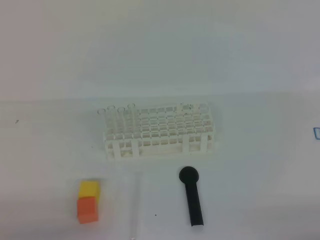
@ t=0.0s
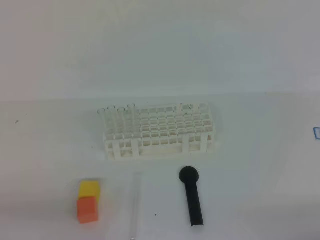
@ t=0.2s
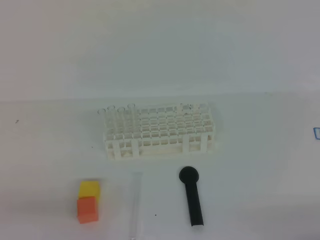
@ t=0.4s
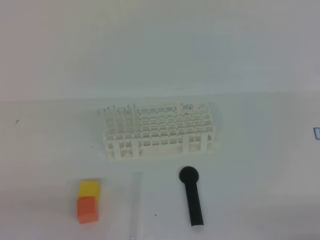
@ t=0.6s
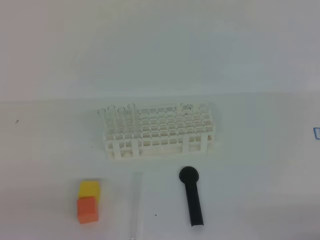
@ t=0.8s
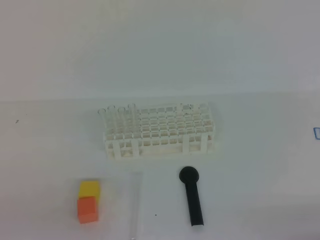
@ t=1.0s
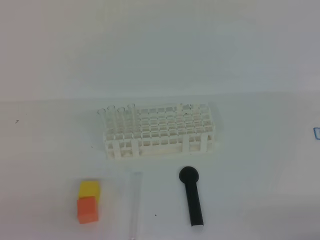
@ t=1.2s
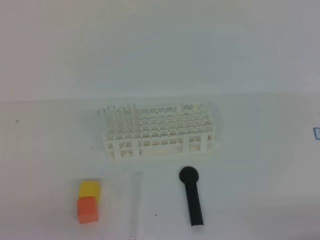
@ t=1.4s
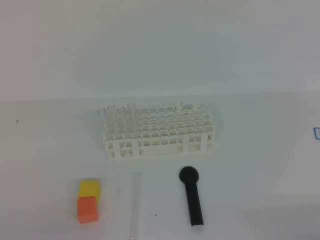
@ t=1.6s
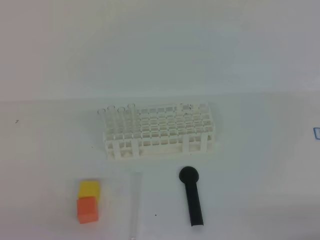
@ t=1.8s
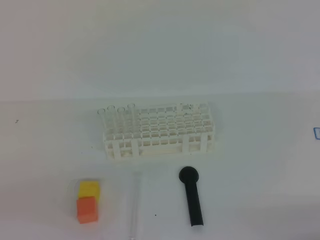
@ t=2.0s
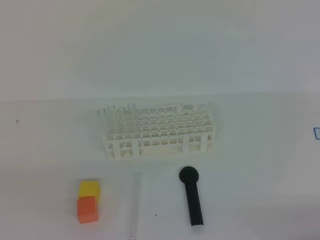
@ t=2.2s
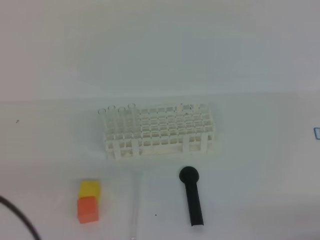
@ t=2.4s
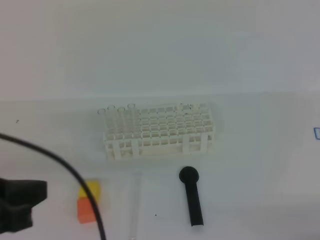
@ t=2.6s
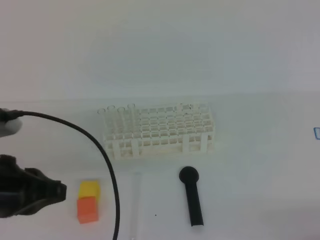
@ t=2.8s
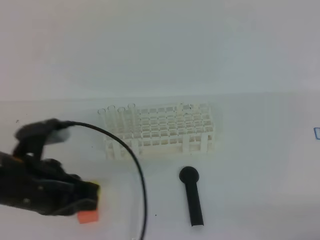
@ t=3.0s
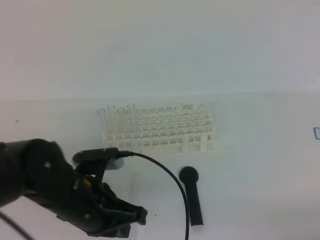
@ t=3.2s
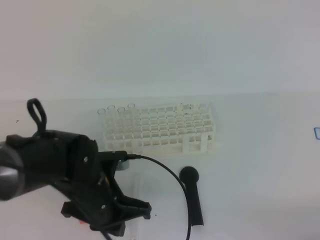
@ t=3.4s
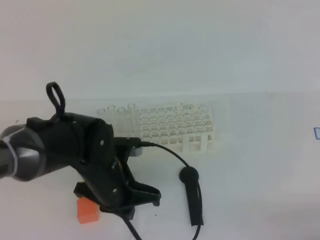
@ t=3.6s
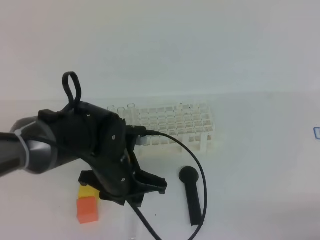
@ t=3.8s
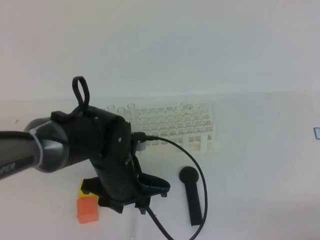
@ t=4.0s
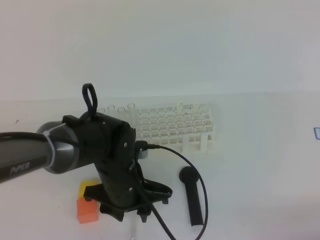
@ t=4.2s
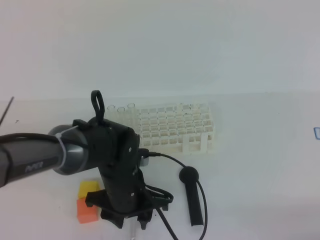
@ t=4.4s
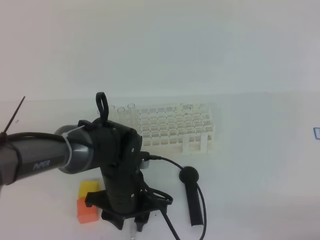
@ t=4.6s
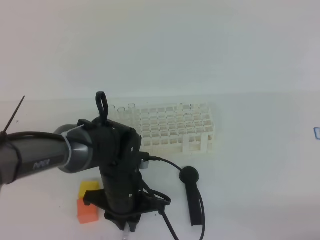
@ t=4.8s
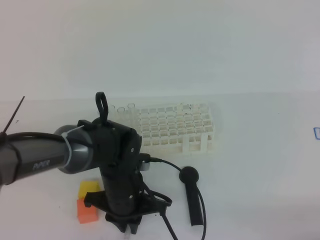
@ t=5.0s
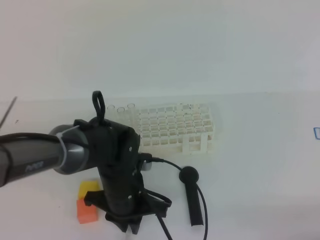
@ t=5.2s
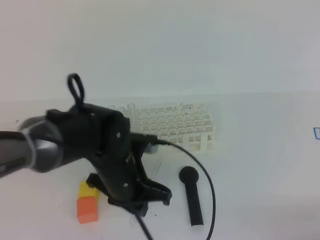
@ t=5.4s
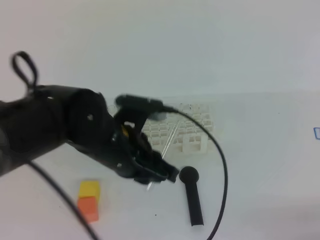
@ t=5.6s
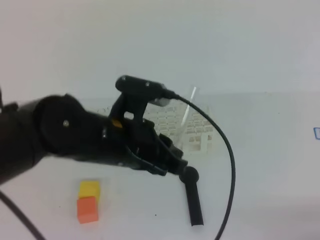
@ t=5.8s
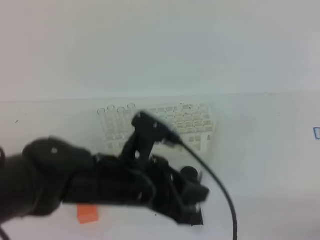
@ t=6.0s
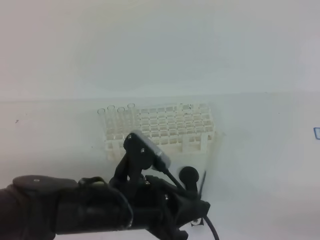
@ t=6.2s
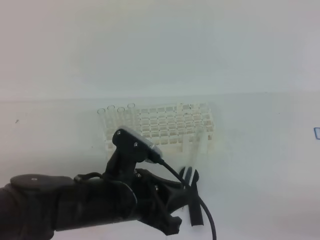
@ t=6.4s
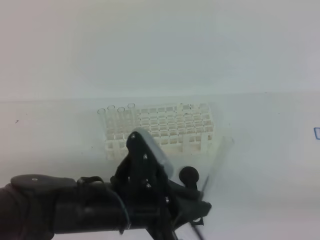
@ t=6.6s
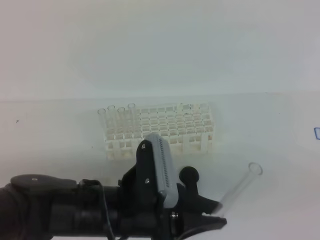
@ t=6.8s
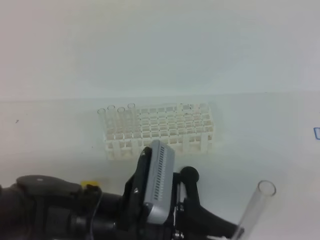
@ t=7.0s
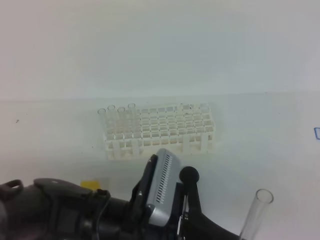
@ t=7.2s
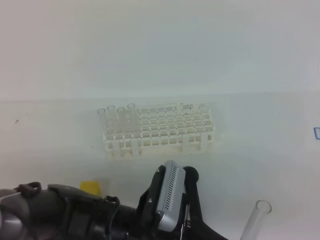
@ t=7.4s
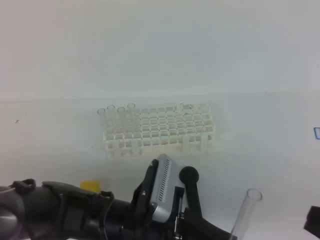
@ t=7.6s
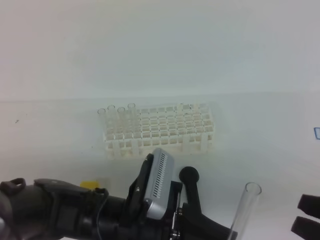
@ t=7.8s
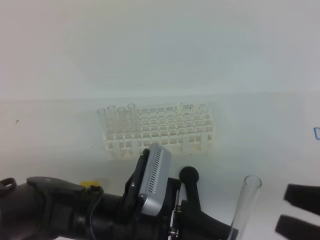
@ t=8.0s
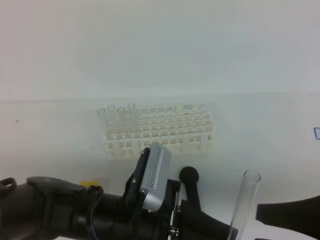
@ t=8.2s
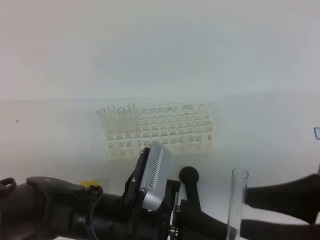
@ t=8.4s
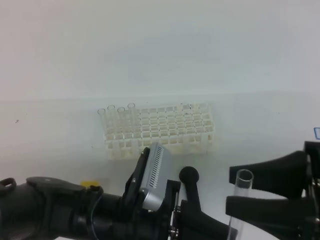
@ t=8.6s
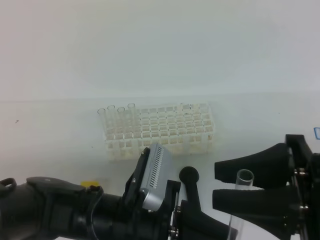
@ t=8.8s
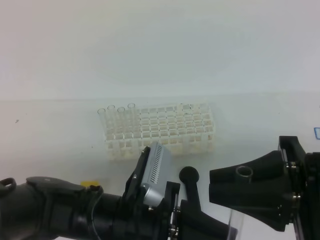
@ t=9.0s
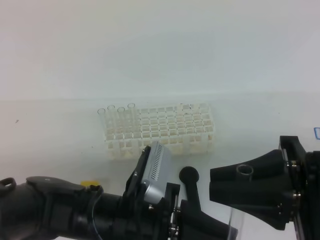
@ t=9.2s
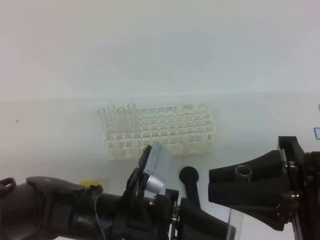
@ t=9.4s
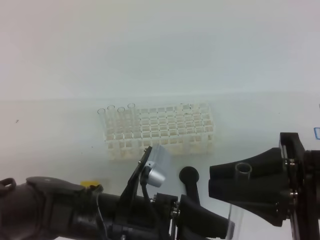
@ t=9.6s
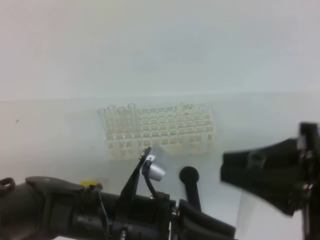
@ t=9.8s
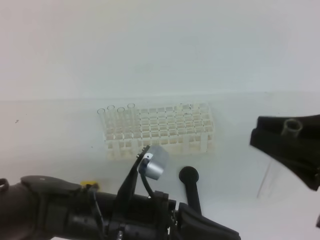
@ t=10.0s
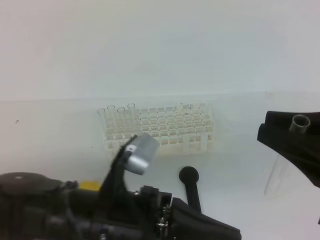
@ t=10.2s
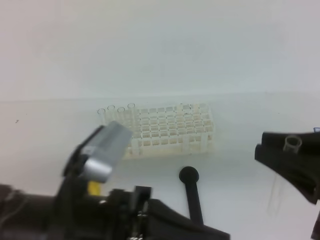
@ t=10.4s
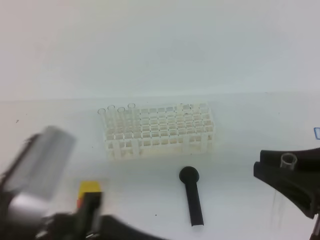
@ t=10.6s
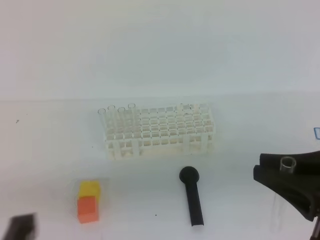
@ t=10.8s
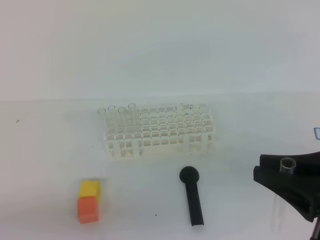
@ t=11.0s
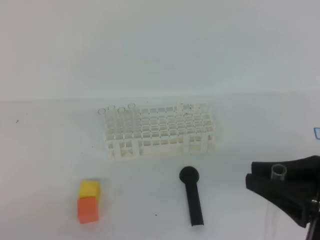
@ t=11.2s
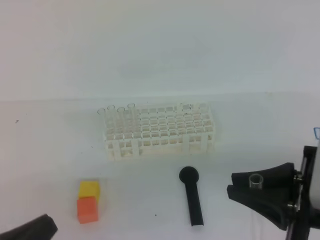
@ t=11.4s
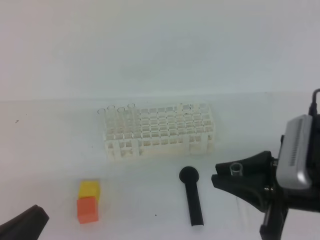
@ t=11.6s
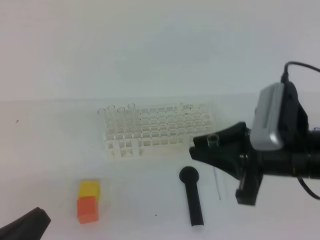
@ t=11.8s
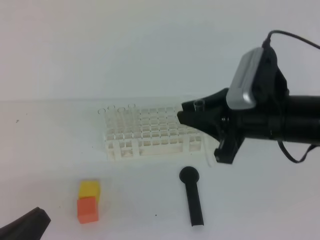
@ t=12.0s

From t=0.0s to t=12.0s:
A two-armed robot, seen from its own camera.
From t=1.6s to t=3.0s: The left gripper travels forward and to the right by about 20 cm.
From t=3.0s to t=4.4s: The left gripper moves to the right, downward and forward, roughly 20 cm, and opens up.
From t=4.4s to t=6.0s: The left gripper heads upward and backward, covering approximately 10 cm, and closes its fingers.
From t=6.0s to t=7.6s: The right gripper heads upward and to the left, covering approximately 15 cm. The left gripper travels backward and downward by approximately 5 cm.
From t=7.6s to t=9.0s: The right gripper goes some 10 cm forward and to the left, and opens its fingers.
From t=9.0s to t=10.4s: The left gripper moves upward, some 10 cm, and opens and closes again.
From t=10.4s to t=12.0s: The left gripper is displaced to the left by about 15 cm; the right gripper is displaced forward and to the left by about 15 cm.

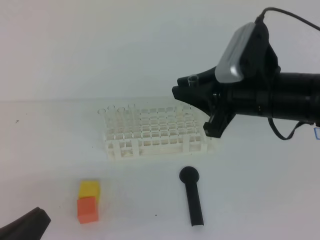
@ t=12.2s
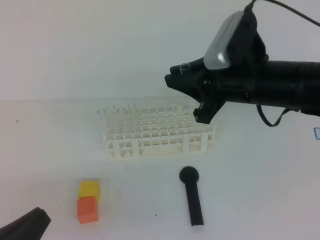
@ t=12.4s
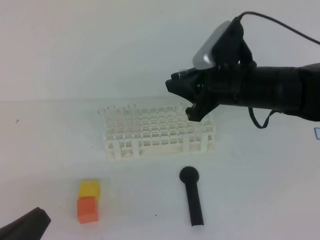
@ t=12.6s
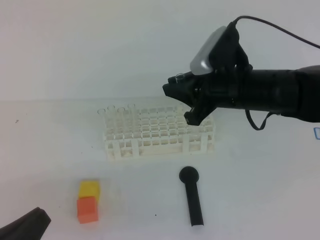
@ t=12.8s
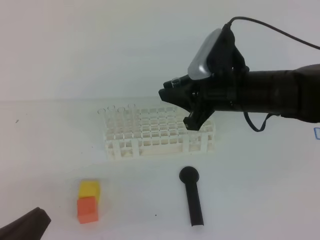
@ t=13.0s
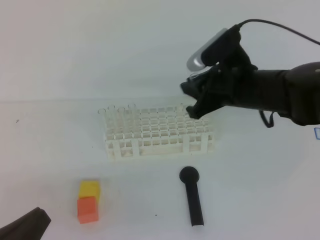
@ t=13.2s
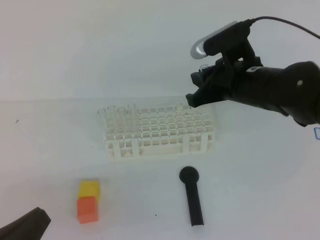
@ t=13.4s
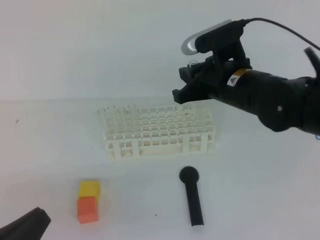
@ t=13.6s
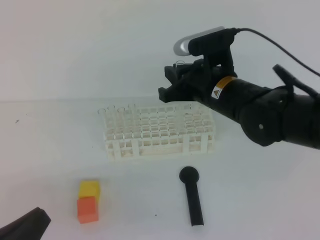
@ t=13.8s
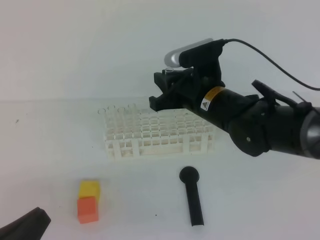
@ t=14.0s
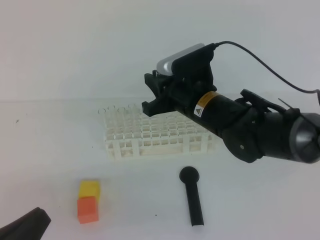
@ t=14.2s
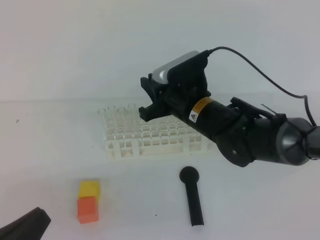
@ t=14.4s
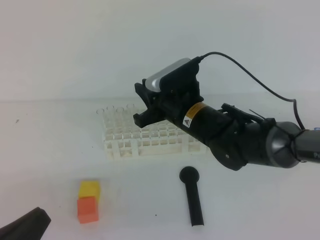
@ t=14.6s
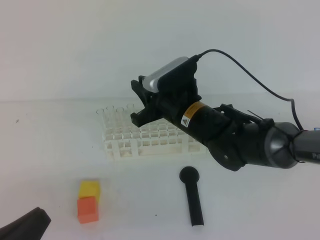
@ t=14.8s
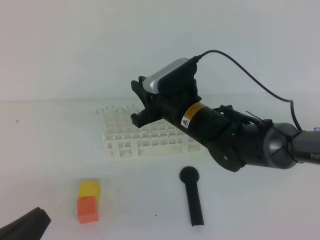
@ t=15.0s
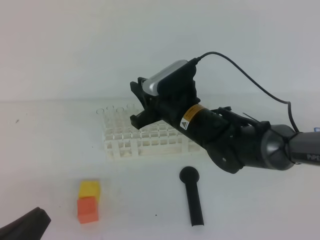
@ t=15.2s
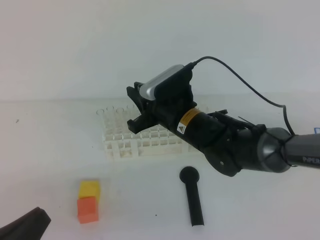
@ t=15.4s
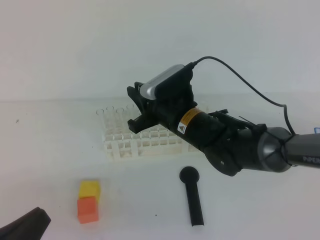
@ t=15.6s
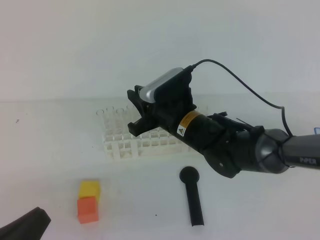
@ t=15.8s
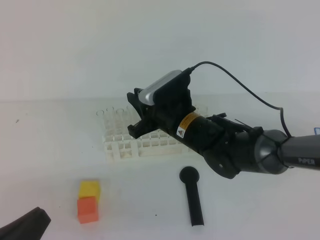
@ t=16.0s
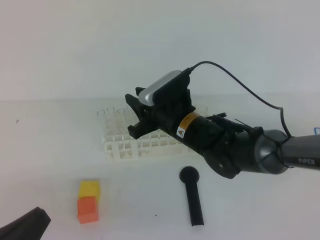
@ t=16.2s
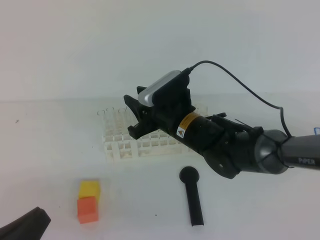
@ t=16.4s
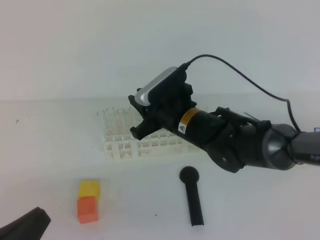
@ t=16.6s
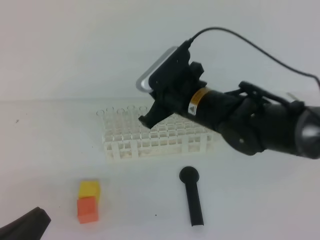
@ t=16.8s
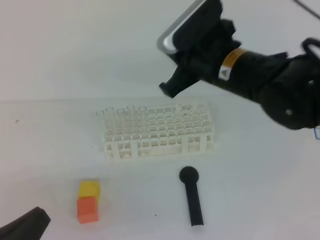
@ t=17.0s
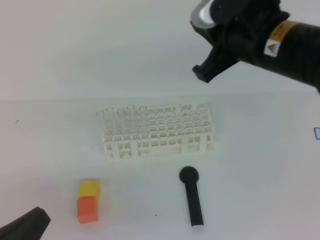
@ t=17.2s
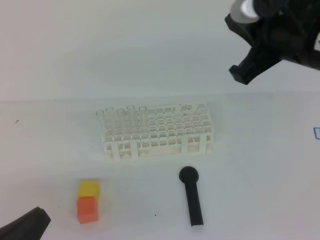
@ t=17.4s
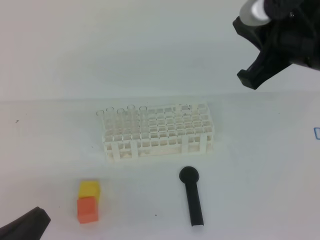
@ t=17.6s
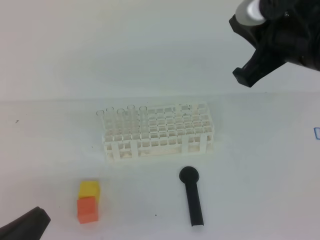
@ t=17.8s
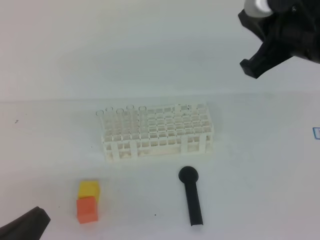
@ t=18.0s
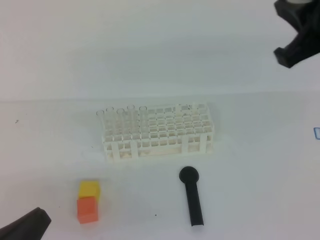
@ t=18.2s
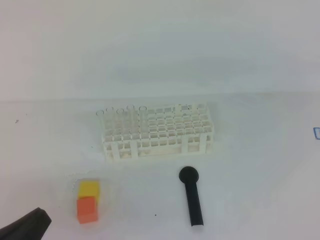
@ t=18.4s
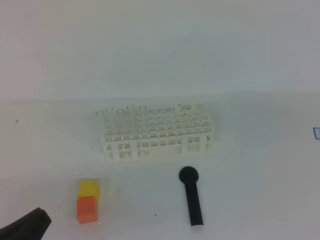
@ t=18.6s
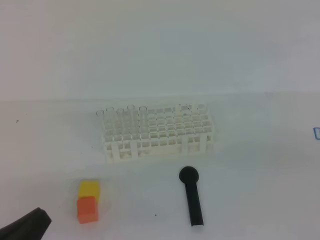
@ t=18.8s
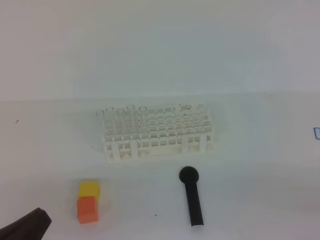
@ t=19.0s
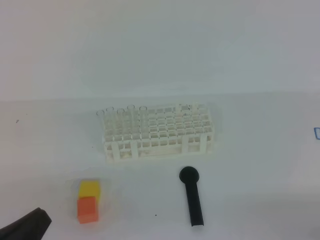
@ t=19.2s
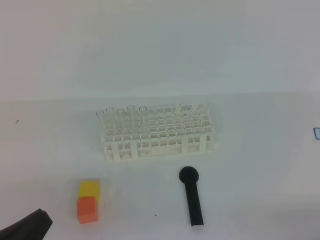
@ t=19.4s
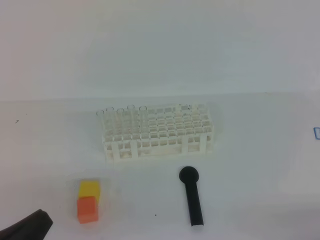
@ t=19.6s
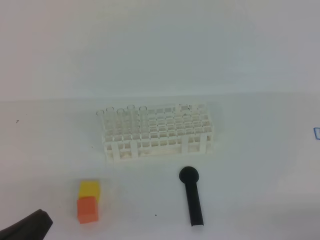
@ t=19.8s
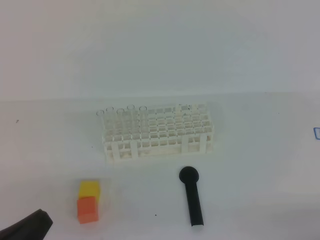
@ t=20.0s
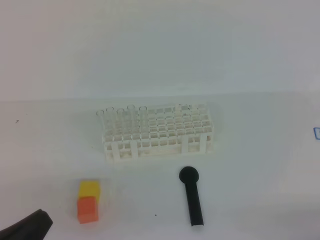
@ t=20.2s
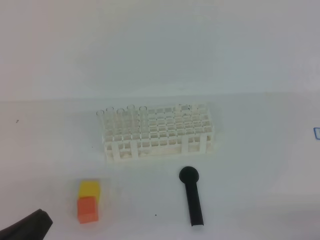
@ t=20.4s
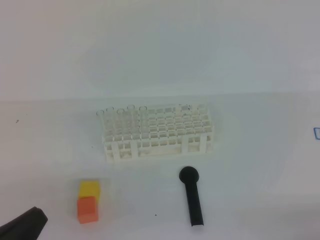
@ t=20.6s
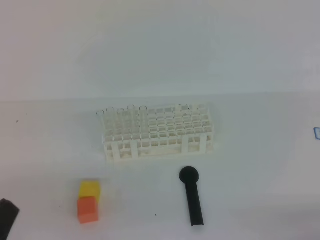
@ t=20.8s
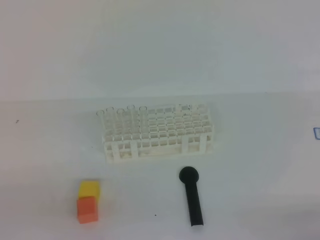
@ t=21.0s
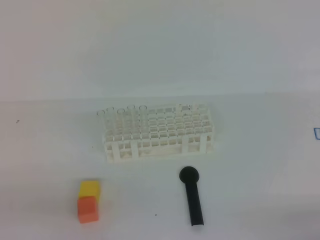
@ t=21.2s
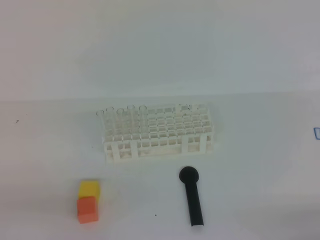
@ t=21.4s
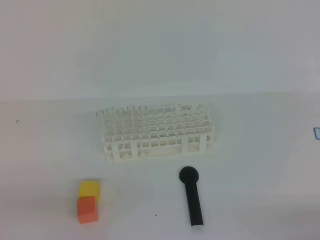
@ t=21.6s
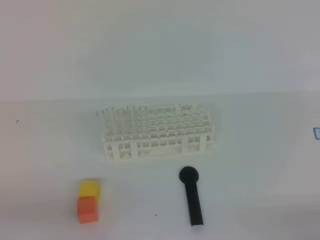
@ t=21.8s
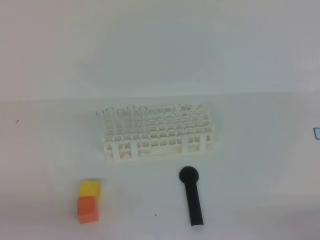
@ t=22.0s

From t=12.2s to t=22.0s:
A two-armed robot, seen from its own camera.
From t=12.2s to t=13.6s: The right gripper moves forward, some 5 cm.
From t=13.6s to t=15.0s: The right gripper is displaced to the left and downward by approximately 10 cm.
From t=15.0s to t=16.4s: The right gripper opens up.
From t=16.4s to t=17.8s: The right gripper heads upward, to the right and backward, covering some 25 cm, and closes up.
From t=17.8s to t=19.2s: The right gripper heads backward, downward and to the right, covering roughly 35 cm.
